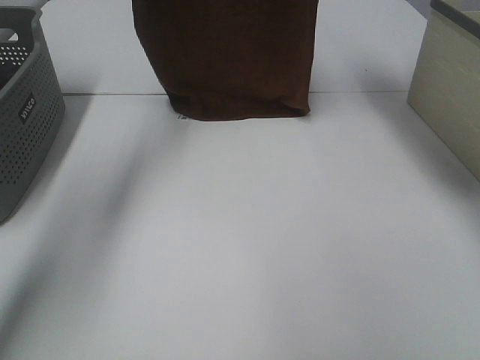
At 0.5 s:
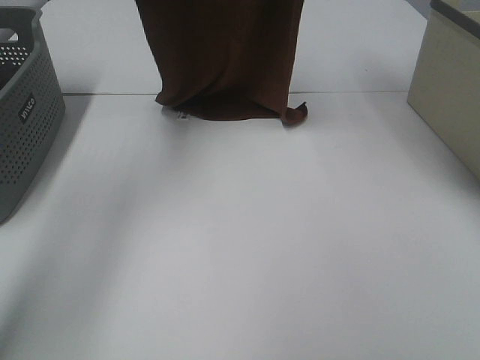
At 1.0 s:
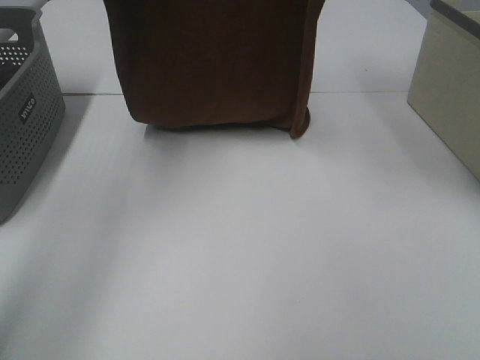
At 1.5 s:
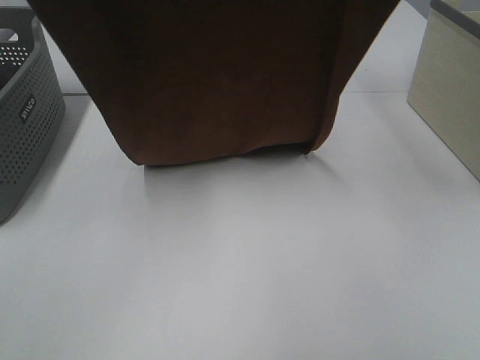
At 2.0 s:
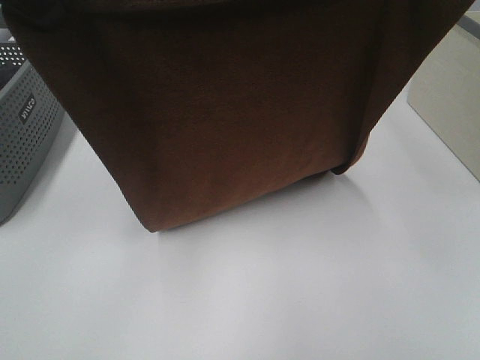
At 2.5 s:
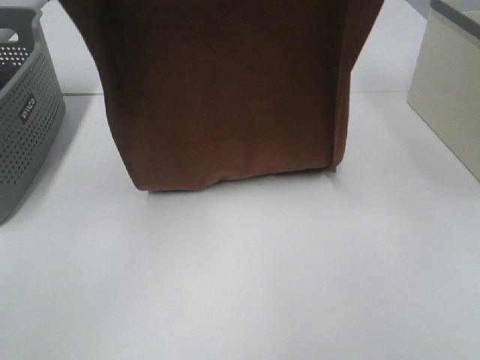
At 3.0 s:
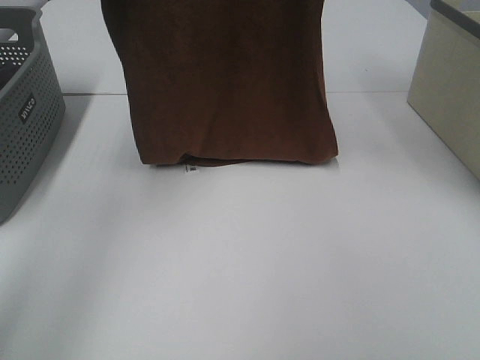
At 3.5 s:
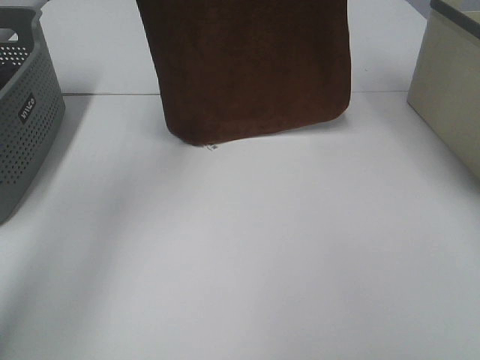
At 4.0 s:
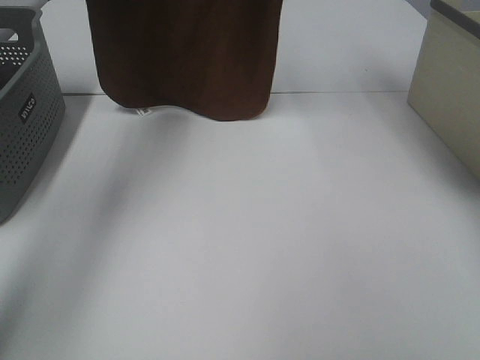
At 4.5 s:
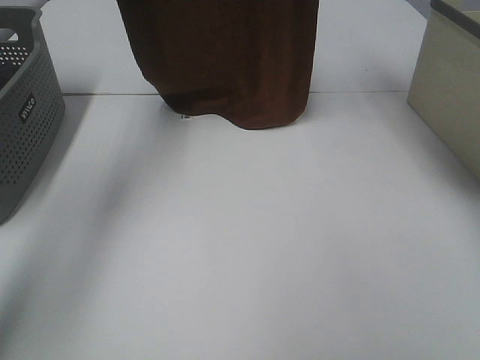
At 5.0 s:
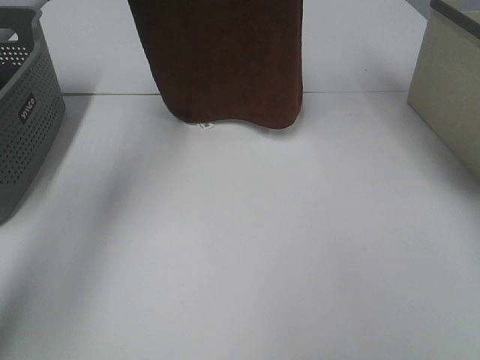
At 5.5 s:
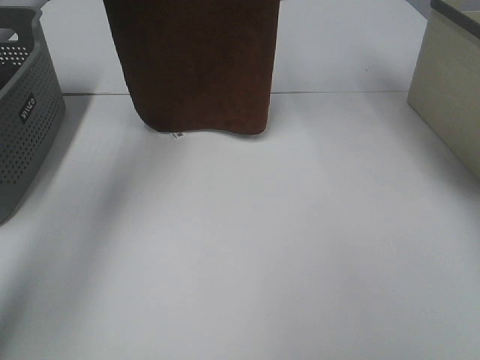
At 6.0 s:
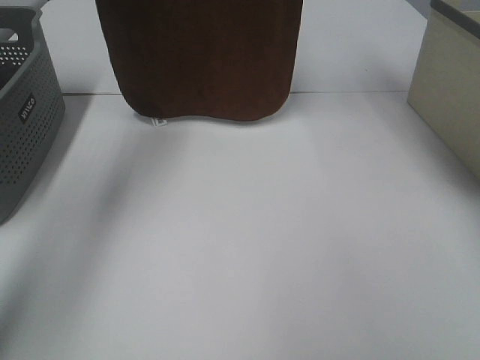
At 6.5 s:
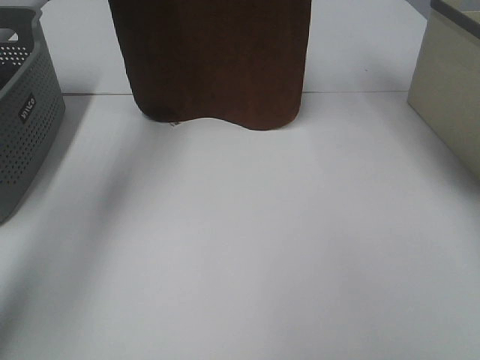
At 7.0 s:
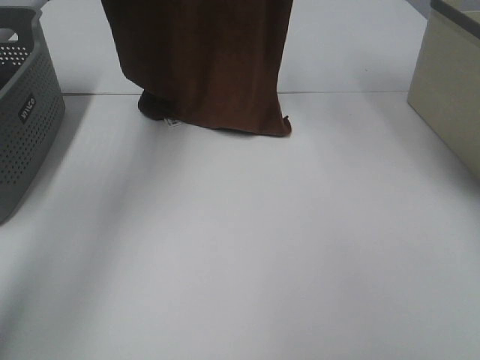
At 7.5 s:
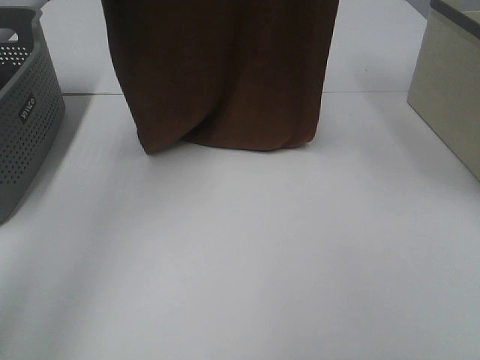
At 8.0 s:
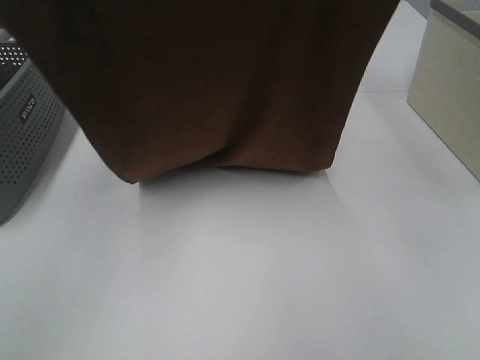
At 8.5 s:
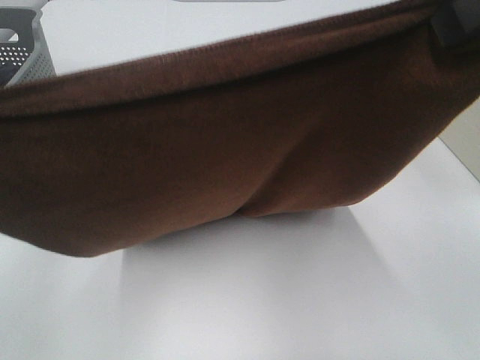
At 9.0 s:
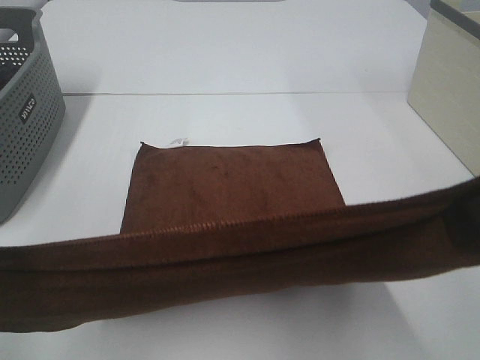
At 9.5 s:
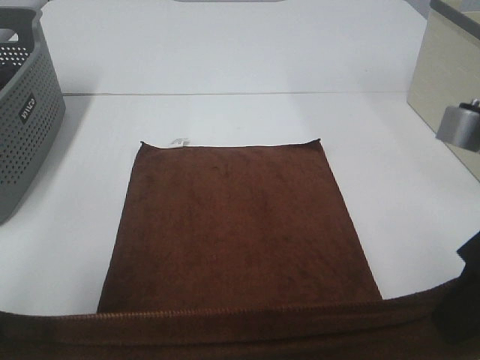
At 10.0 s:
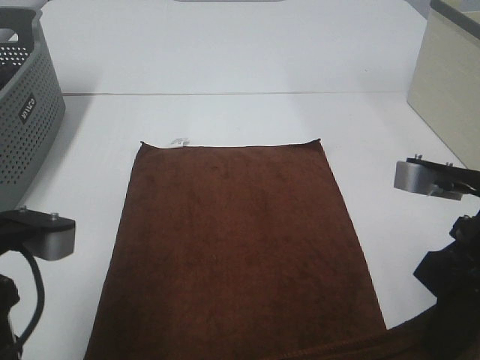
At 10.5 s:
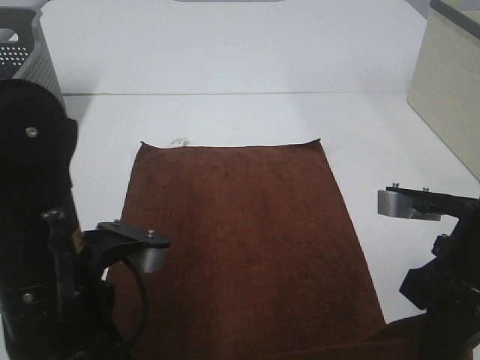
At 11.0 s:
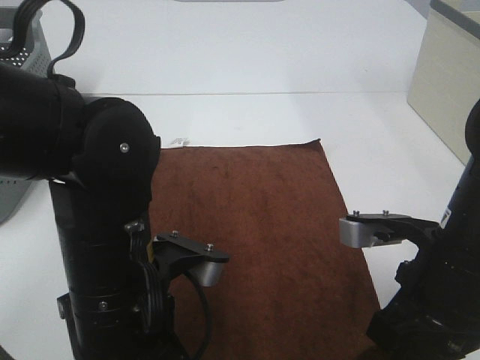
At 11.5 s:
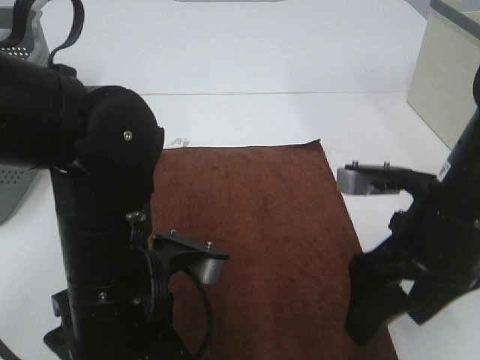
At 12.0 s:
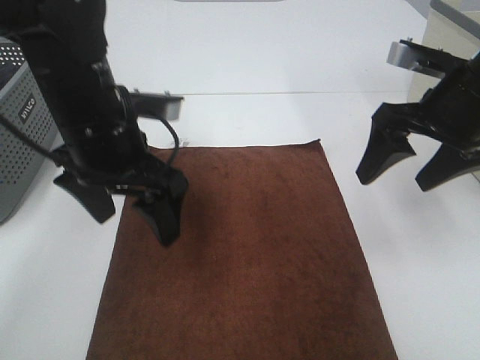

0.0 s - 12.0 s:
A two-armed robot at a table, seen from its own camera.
Task of the whole recording: Remove the towel and place it.
Step, 0.0 s - 5.5 s: Left hand: spread the brown towel flat on the table.
Step, 0.0 s - 5.5 s: Right hand: spread the brown towel flat on the table.
0.0 s - 2.0 s: Both grippers travel together backward, roughly 25 cm.
2.0 s - 4.0 s: The right gripper travels forward by about 20 cm, while the left gripper is displaced forward and upward by some 25 cm.
4.0 s - 6.0 s: There are only small adjustments of the grippers.
6.0 s - 8.0 s: Both grippers move backward, some 20 cm.
8.0 s - 10.0 s: The right gripper travels downward by roughly 25 cm, while the left gripper moves downward and backward, approximately 25 cm.
10.0 s - 12.0 s: Both grippers travel together forward, approximately 15 cm. The left gripper opens up; the right gripper opens.

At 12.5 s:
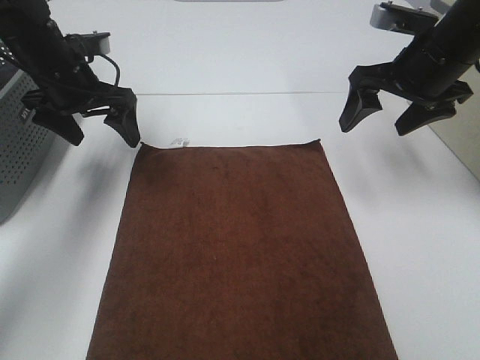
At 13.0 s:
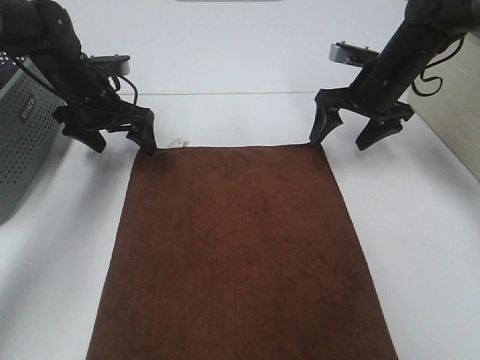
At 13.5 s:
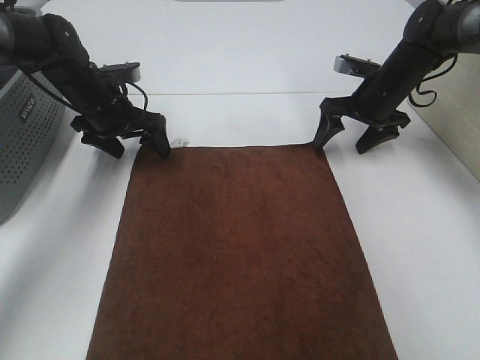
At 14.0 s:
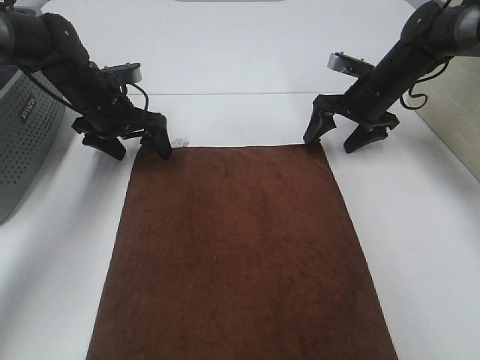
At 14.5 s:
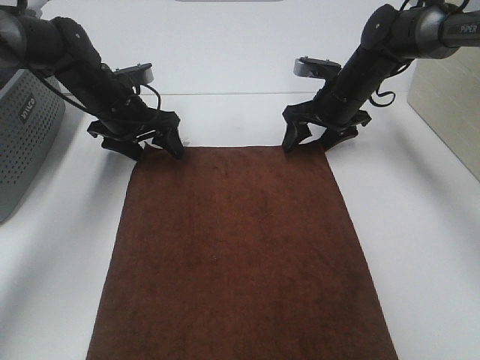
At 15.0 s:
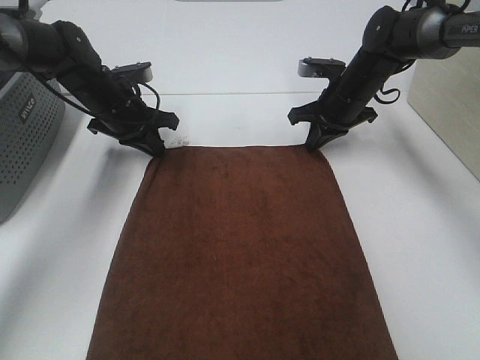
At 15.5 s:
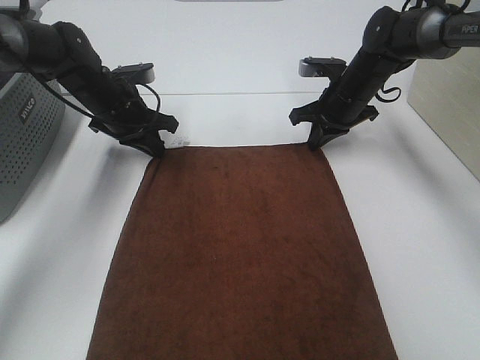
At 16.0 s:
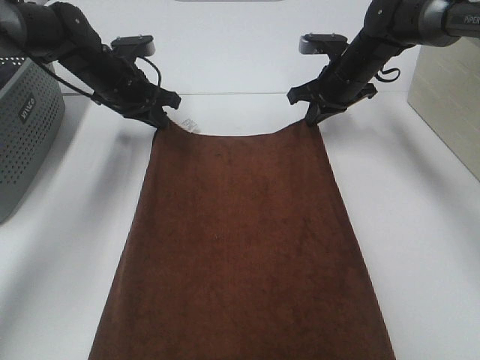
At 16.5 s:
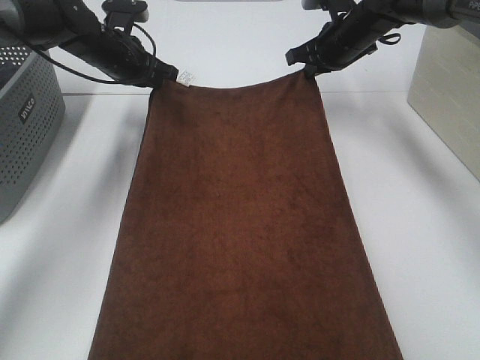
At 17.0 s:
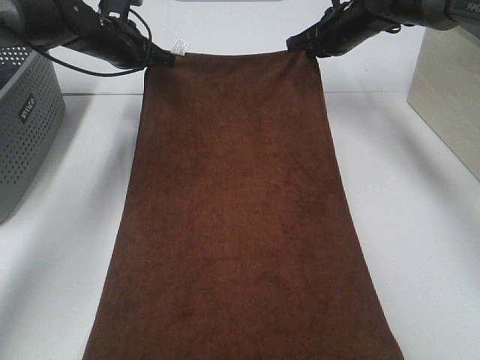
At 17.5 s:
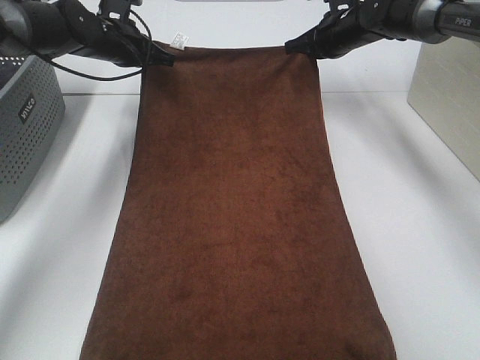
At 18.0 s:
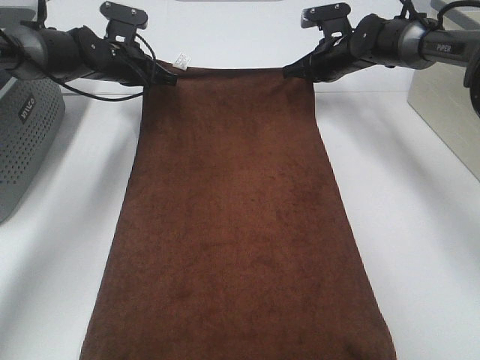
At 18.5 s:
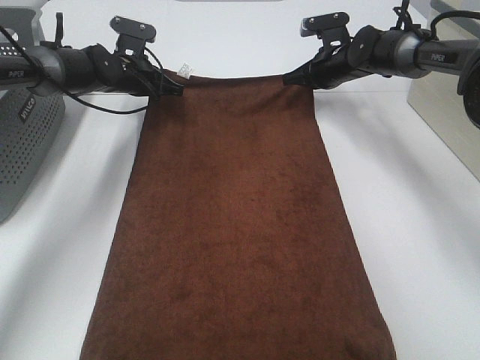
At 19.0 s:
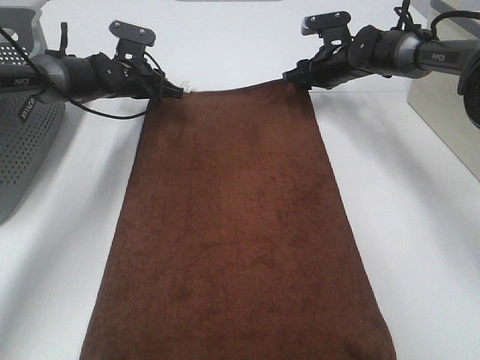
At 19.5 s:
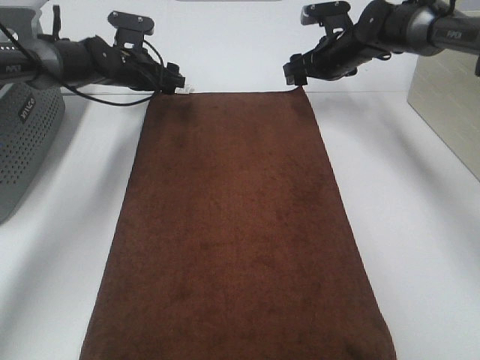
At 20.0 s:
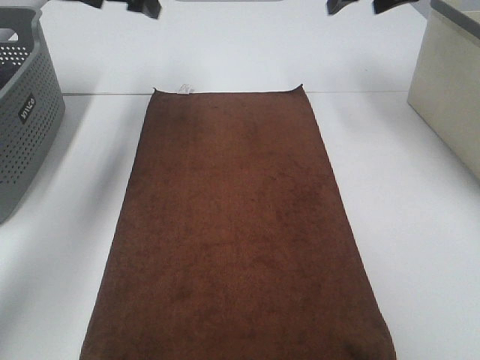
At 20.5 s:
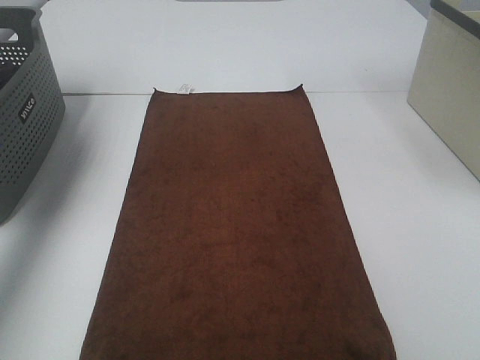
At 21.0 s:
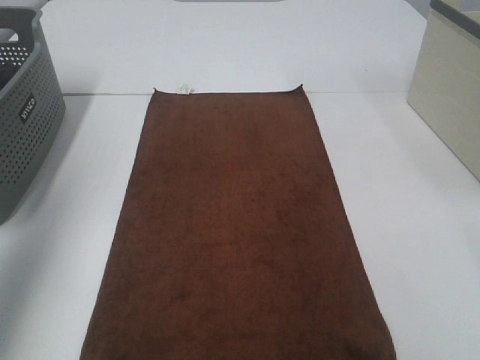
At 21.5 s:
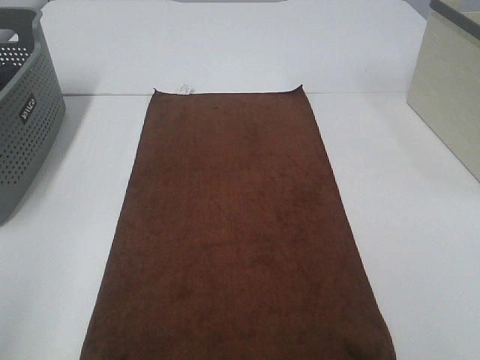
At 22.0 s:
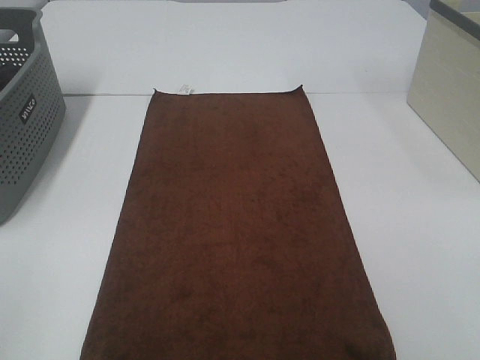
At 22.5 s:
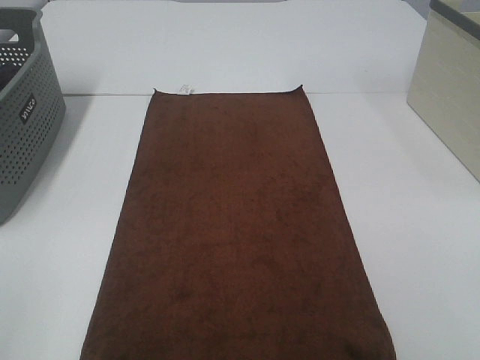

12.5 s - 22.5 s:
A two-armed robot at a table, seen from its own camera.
Task of the whole recording: Remove the towel and place it.
12.5 s - 14.5 s: The left gripper shifts approximately 5 cm downward; the right gripper heads downward, forward and to the left, covering about 15 cm.
14.5 s - 16.5 s: The left gripper travels forward and upward by approximately 5 cm, and closes up. Meanwhile the right gripper travels upward and forward by roughly 10 cm, and closes up.
16.5 s - 18.5 s: The grippers both shift downward by some 5 cm.
18.5 s - 20.5 s: The left gripper heads upward, backward and to the left, covering approximately 35 cm, and opens. The right gripper goes approximately 35 cm upward and backward, and opens its fingers.
20.5 s - 22.5 s: The left gripper shifts approximately 40 cm backward.

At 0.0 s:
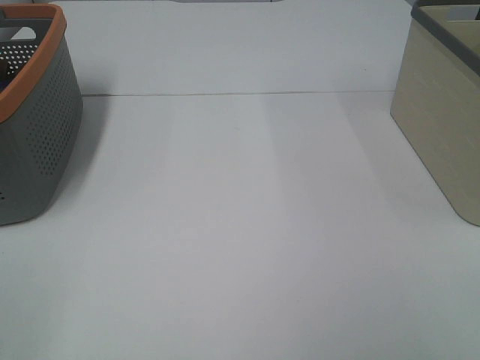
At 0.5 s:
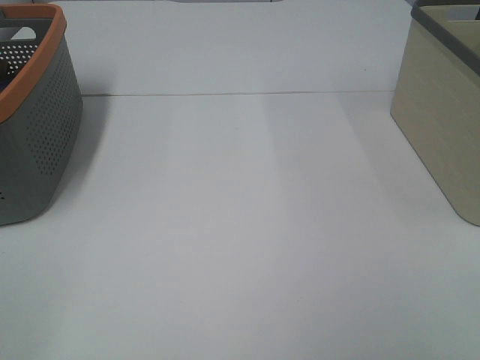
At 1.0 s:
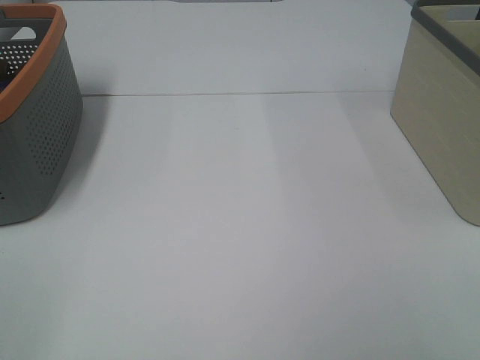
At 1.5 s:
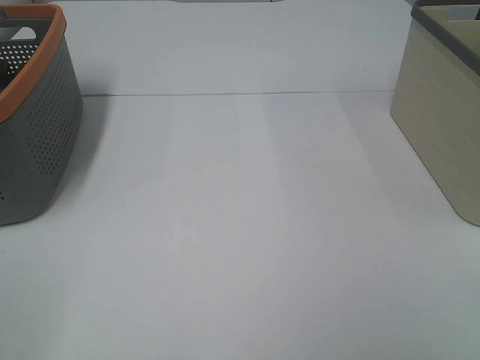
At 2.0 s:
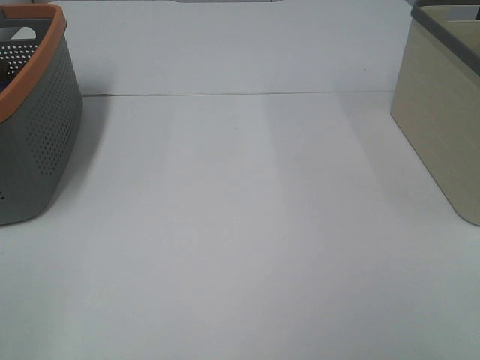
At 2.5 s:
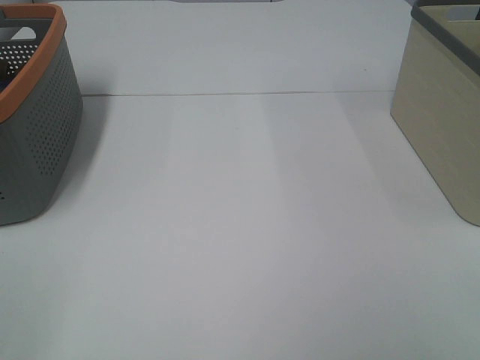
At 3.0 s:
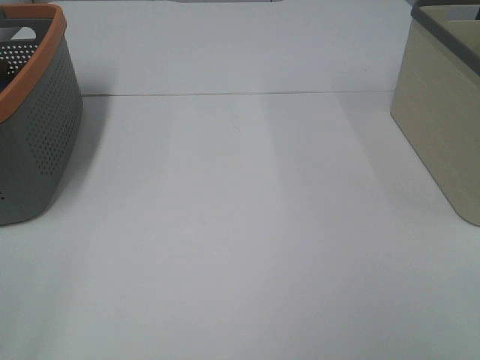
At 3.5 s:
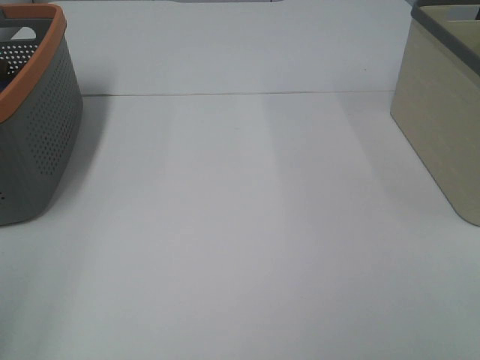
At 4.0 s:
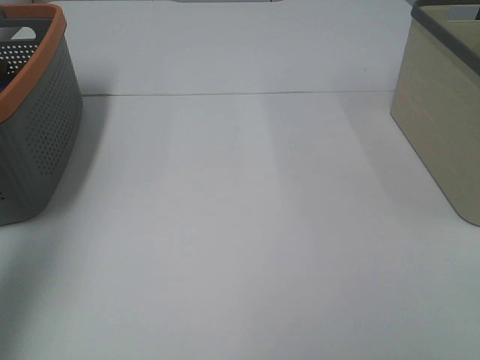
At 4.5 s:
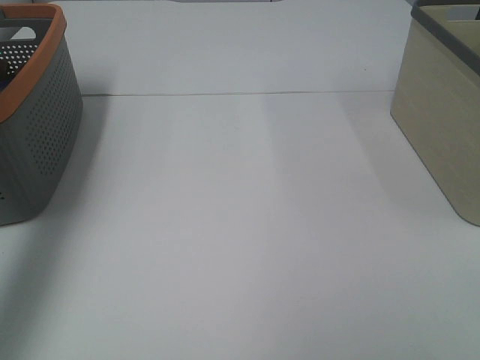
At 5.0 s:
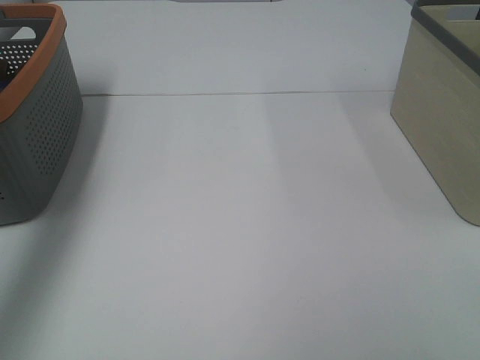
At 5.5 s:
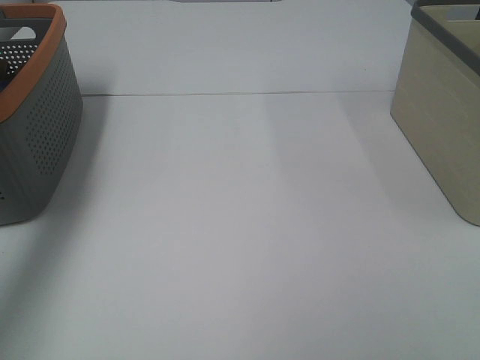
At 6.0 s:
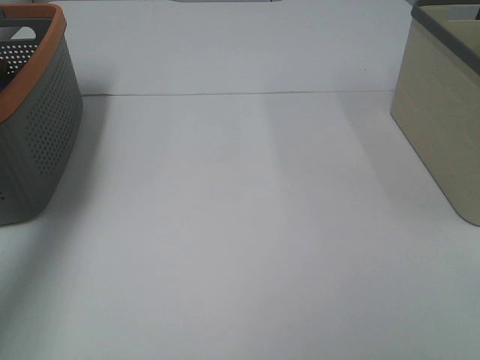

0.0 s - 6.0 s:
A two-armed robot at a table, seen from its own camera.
Task of the whole recording: Remove the towel and place it.
0.0 s - 2.0 s: Neither gripper changes place.
2.0 s - 4.0 s: The left gripper shifts about 20 cm forward and upward.
